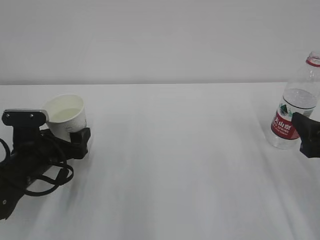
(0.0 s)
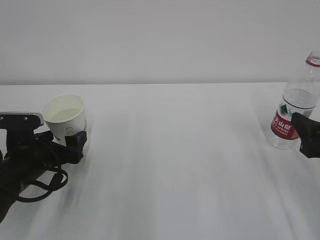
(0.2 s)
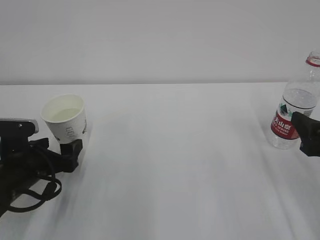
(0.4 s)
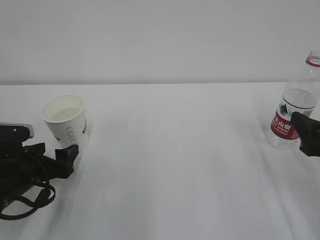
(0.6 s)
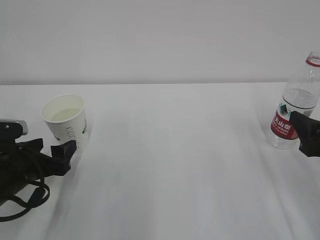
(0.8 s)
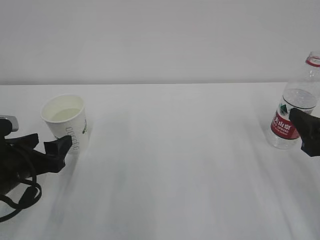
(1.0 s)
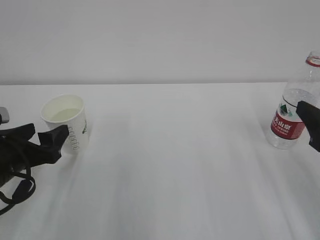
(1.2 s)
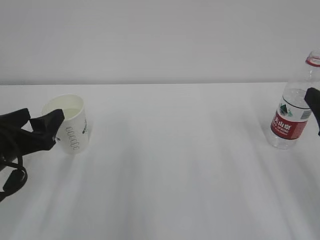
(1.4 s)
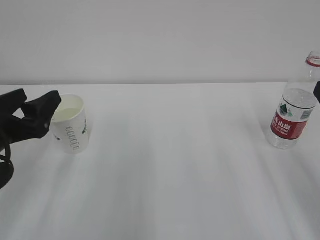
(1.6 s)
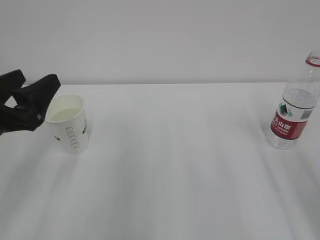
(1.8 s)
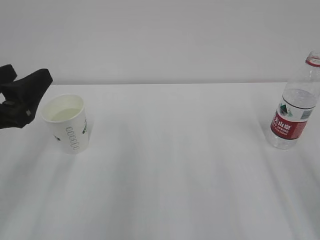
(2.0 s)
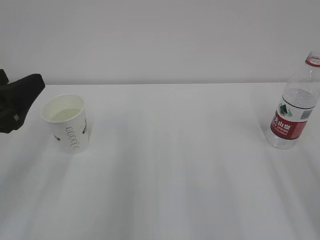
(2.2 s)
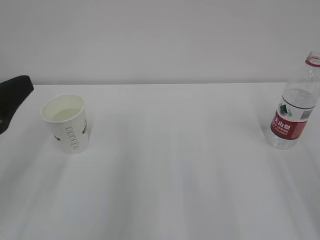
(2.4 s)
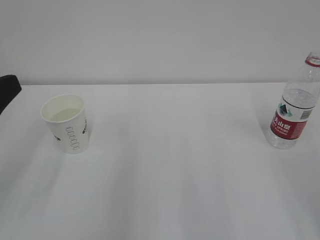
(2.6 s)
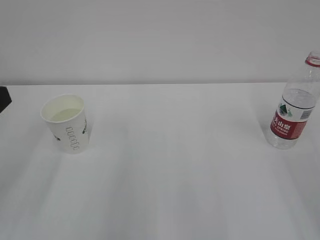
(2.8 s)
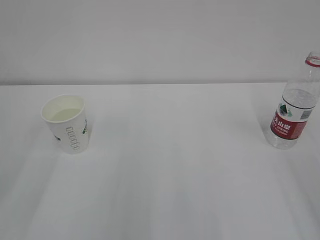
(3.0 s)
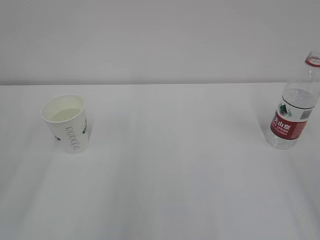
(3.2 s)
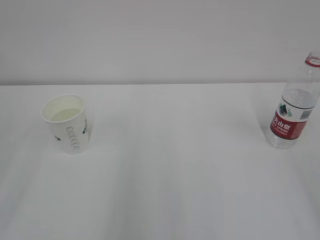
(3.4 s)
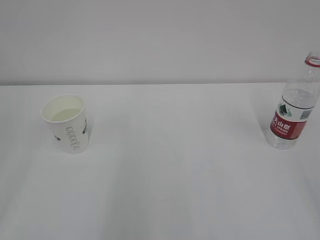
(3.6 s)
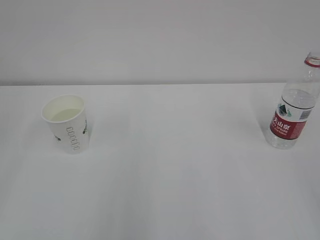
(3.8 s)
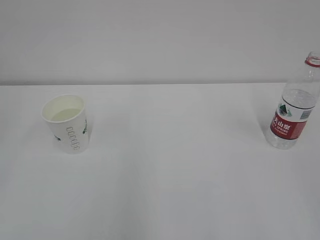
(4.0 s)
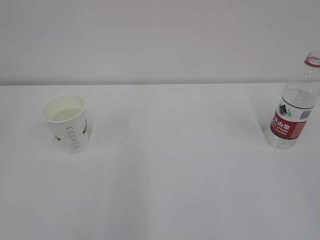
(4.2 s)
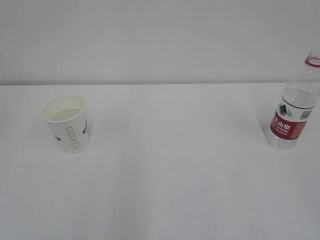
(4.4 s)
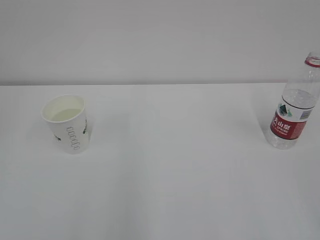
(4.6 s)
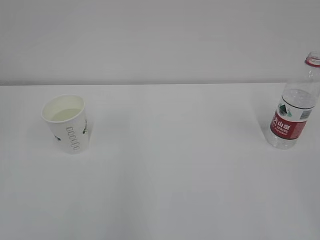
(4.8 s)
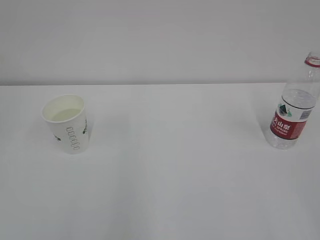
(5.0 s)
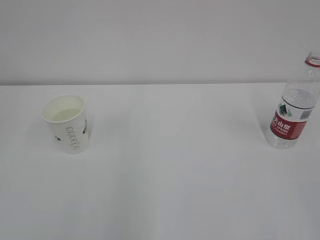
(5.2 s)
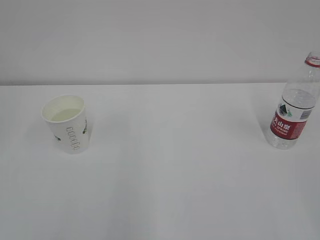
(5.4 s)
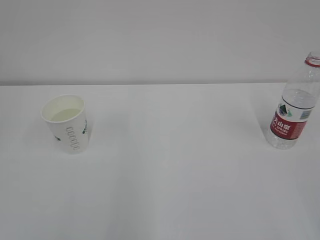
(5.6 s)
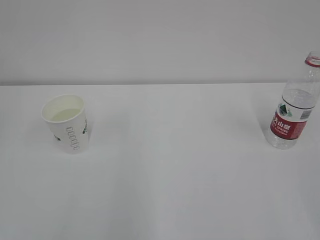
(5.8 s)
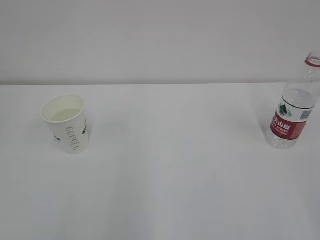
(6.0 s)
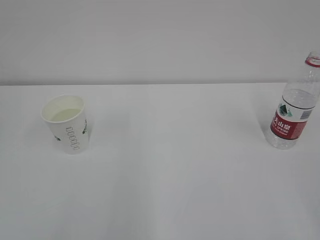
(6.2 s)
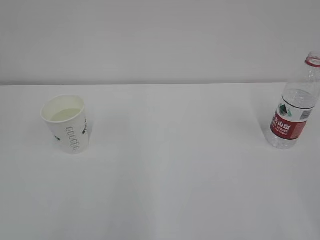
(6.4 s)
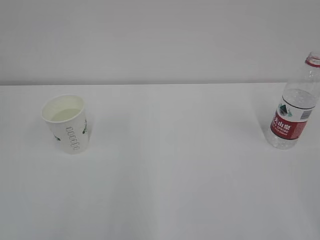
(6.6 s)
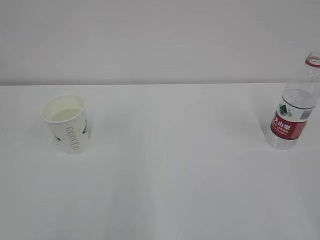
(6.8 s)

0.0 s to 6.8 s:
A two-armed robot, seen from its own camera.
0.0 to 1.4 s: The right gripper ends up roughly 5 cm from where it was. The left gripper heads upward and backward, covering approximately 10 cm, and closes.
1.4 to 2.8 s: The left gripper travels upward and backward by about 15 cm.

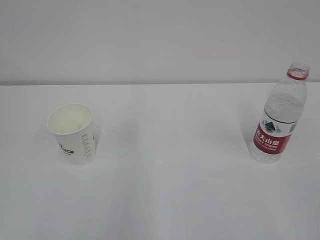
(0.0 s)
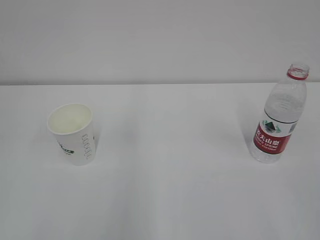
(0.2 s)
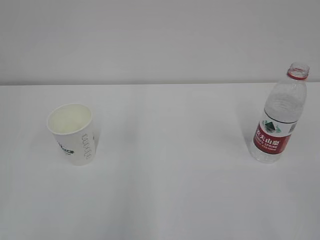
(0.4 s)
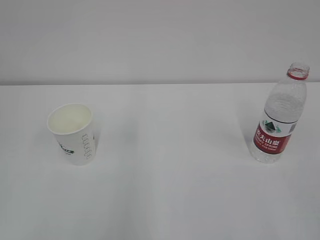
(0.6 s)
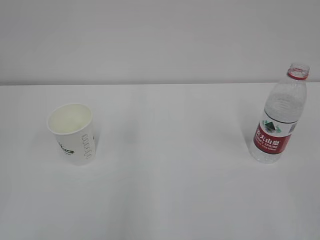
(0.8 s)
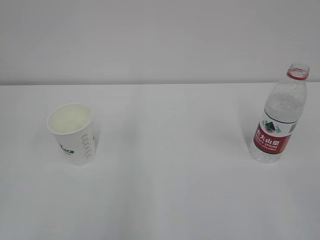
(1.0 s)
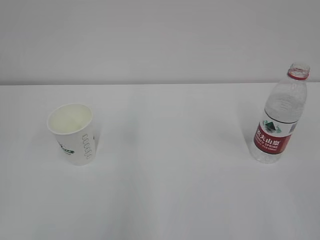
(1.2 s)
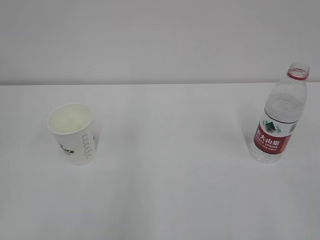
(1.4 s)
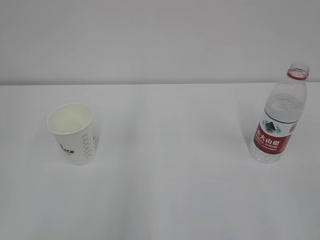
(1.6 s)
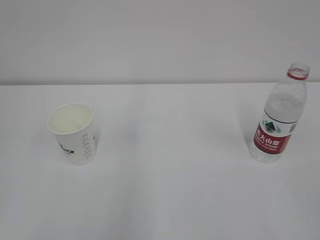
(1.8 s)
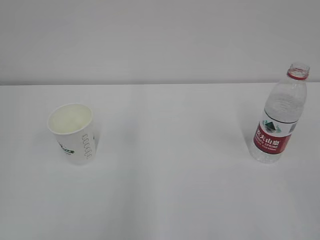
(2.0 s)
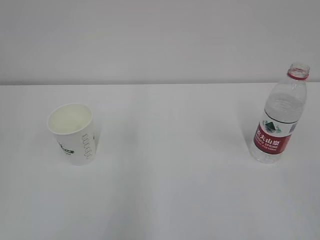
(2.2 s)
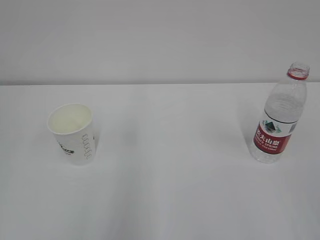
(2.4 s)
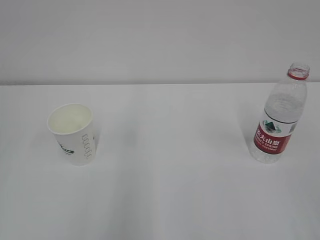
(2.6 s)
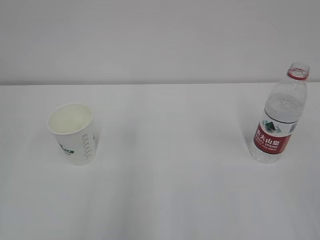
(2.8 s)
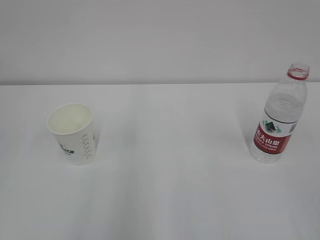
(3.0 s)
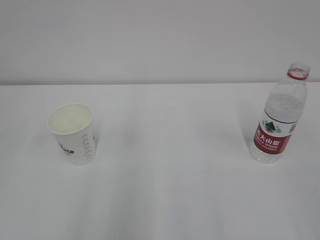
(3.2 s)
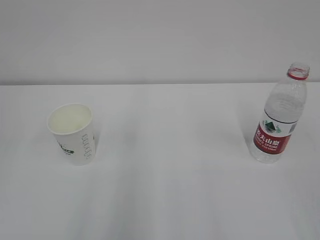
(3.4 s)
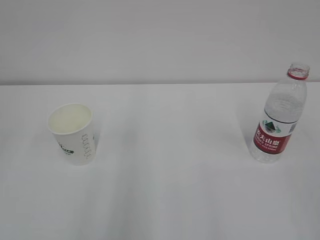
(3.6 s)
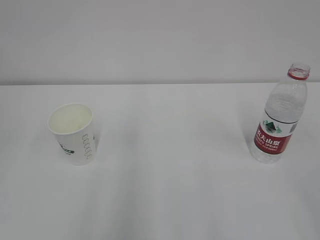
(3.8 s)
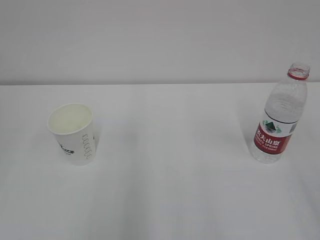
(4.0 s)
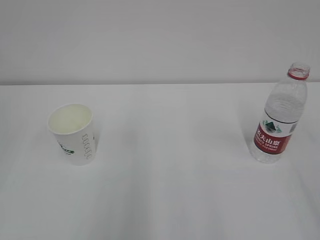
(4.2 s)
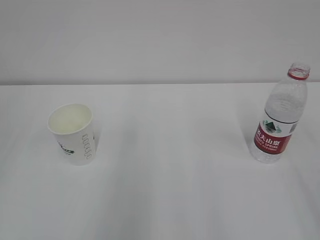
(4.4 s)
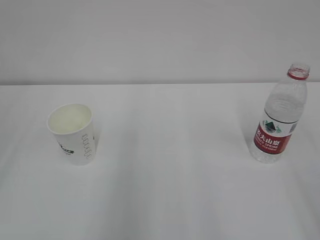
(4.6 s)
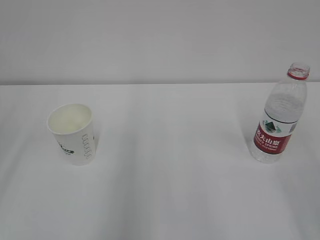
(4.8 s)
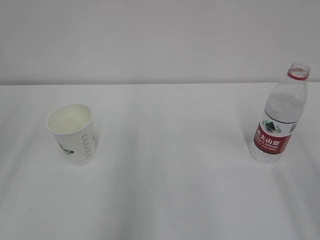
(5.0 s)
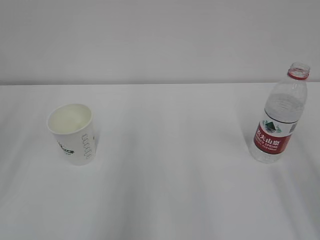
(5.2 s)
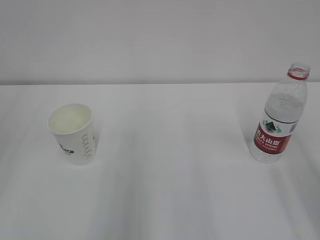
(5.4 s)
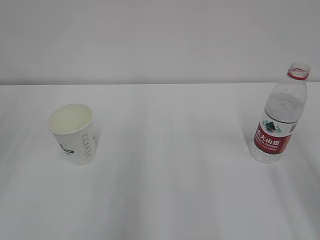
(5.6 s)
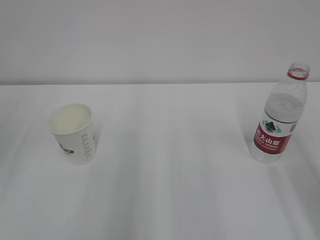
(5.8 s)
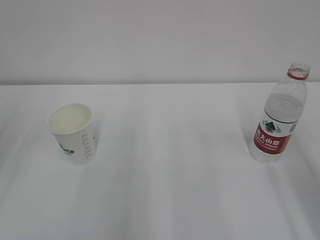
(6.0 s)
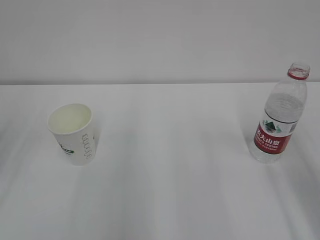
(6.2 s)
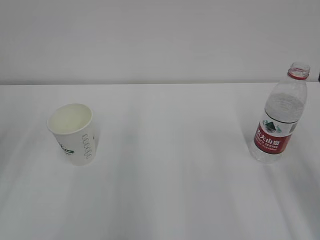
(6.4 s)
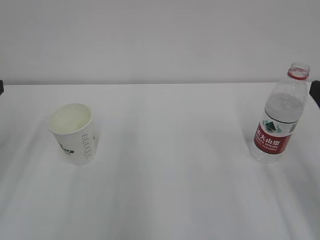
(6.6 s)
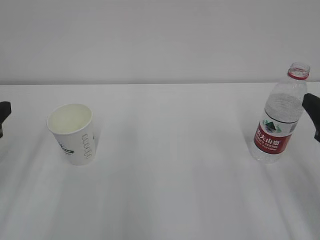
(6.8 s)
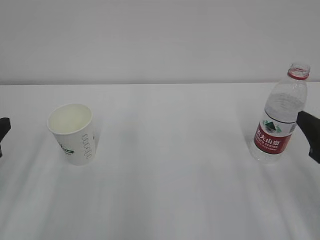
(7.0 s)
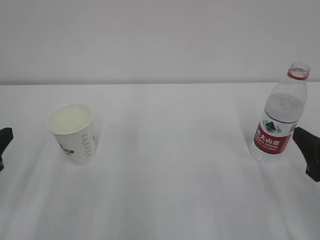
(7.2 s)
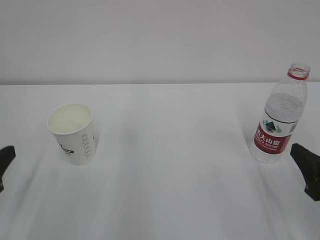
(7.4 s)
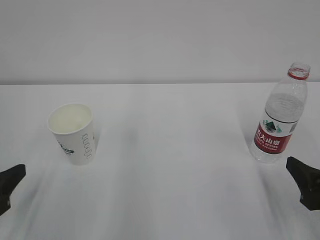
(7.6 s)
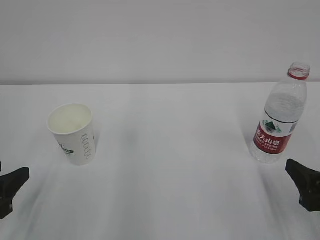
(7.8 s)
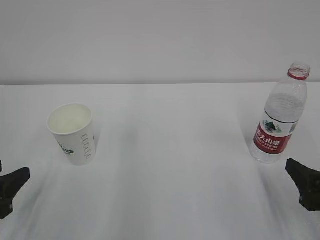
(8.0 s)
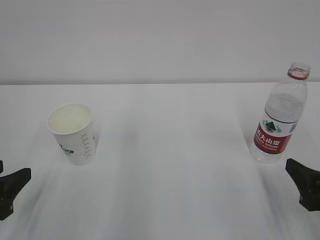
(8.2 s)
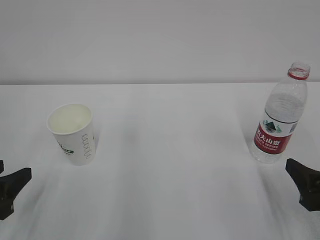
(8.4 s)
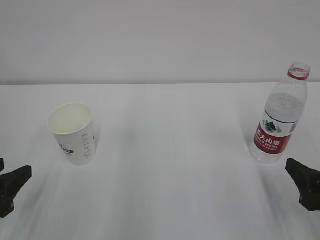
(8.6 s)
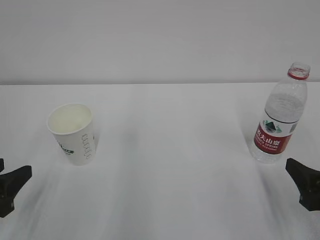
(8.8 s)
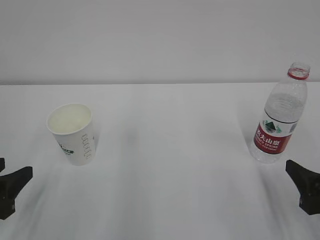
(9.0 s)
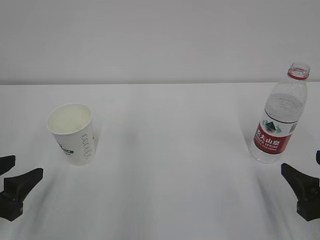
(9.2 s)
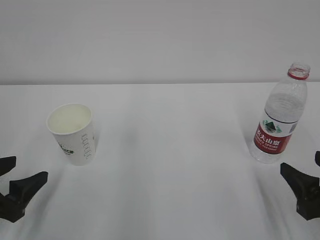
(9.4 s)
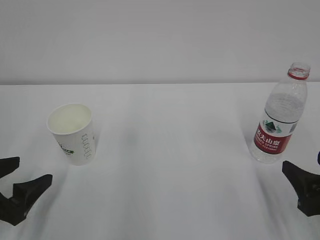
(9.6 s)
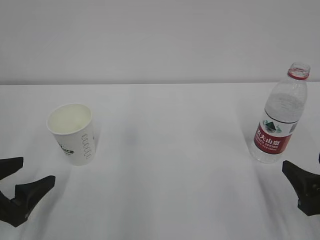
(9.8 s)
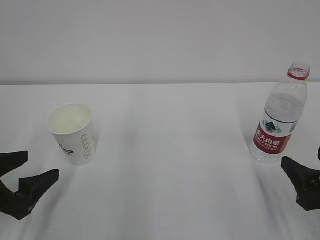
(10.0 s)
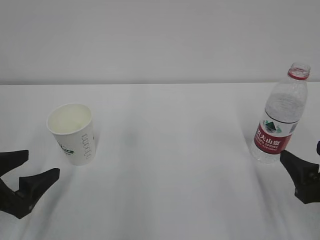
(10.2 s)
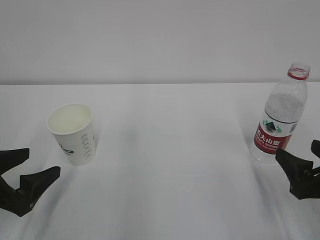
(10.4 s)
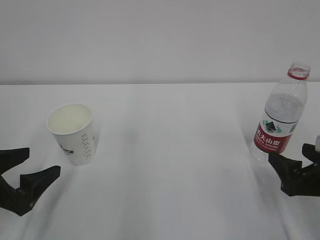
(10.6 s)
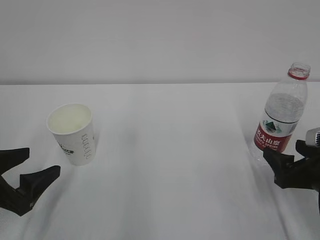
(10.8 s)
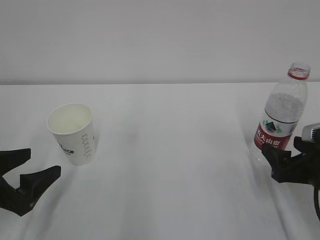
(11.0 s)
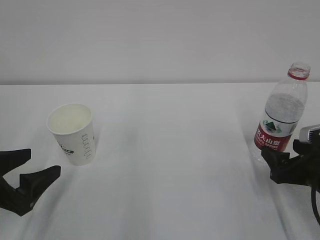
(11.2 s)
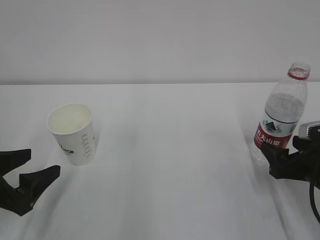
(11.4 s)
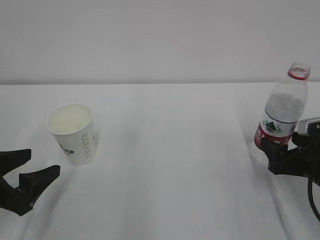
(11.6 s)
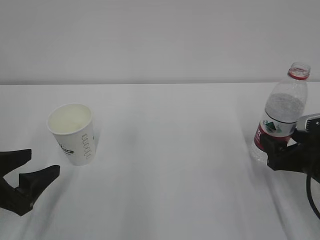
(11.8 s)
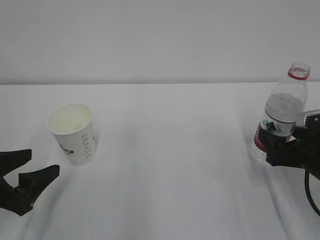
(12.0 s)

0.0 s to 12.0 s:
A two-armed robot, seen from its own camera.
6.0 to 7.6 s: Both grippers travel together downward, approximately 15 cm.
7.6 to 9.0 s: Both grippers stay about where they are.
9.0 to 10.4 s: The left gripper opens.
10.4 to 12.0 s: The right gripper shifts approximately 5 cm forward. Meanwhile the left gripper closes its fingers.

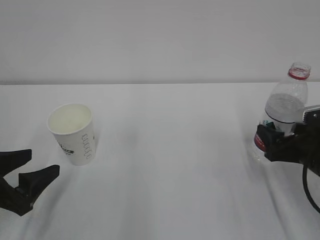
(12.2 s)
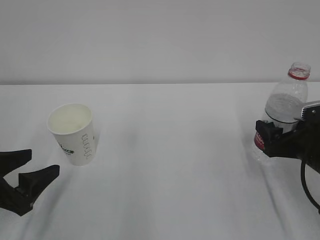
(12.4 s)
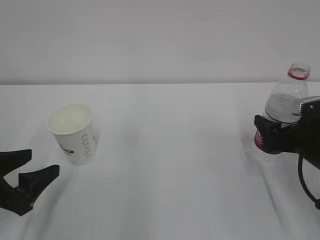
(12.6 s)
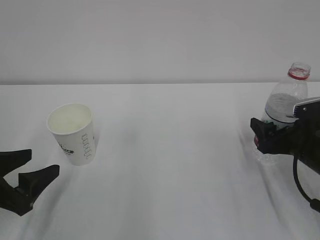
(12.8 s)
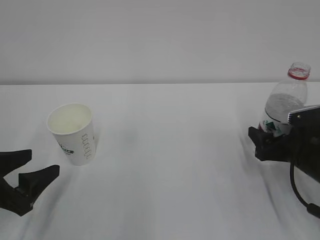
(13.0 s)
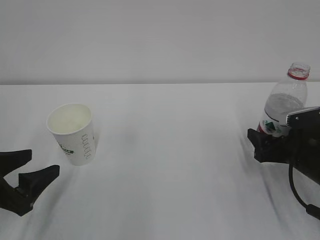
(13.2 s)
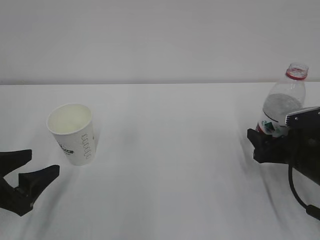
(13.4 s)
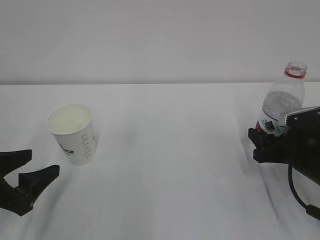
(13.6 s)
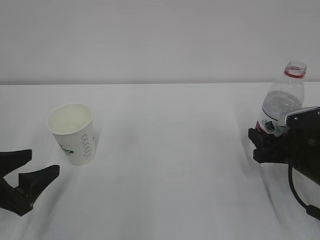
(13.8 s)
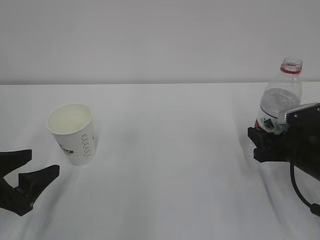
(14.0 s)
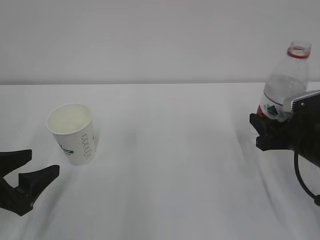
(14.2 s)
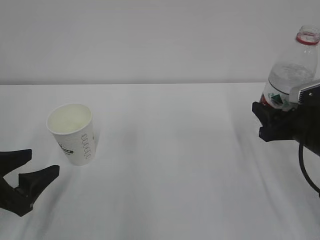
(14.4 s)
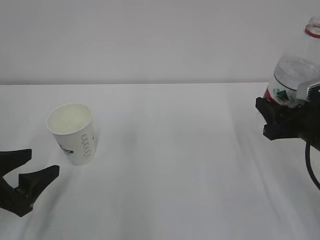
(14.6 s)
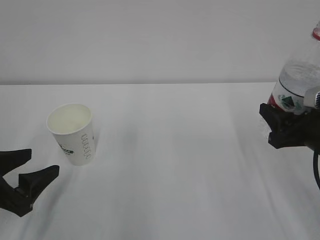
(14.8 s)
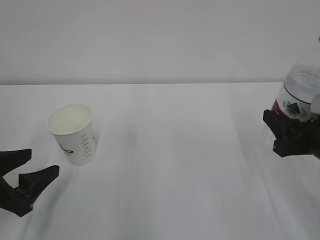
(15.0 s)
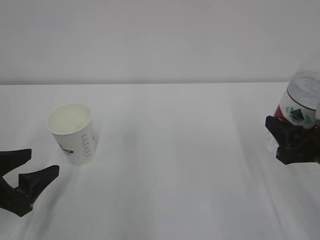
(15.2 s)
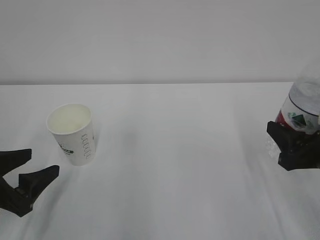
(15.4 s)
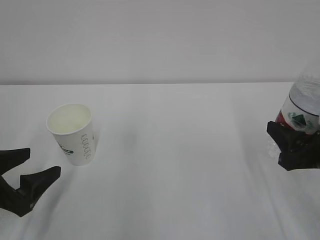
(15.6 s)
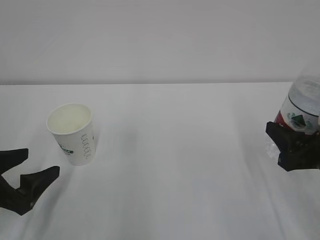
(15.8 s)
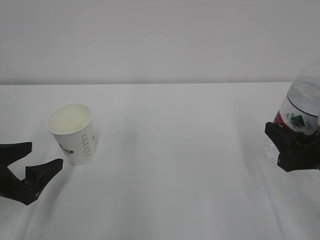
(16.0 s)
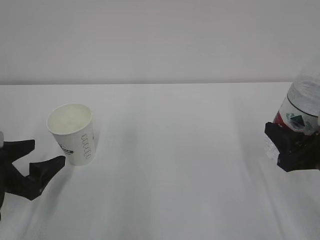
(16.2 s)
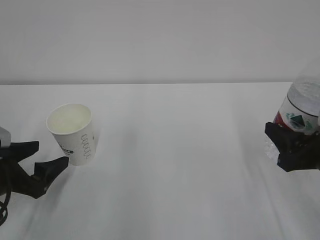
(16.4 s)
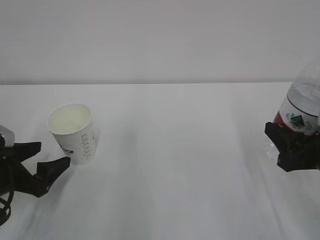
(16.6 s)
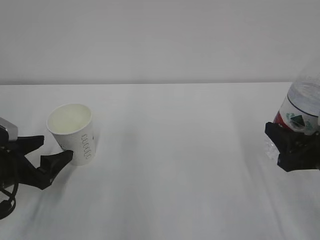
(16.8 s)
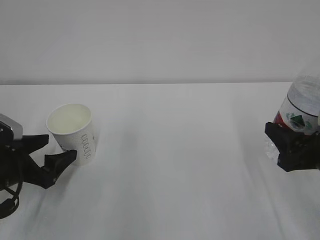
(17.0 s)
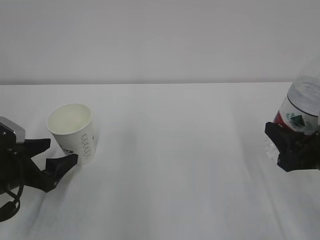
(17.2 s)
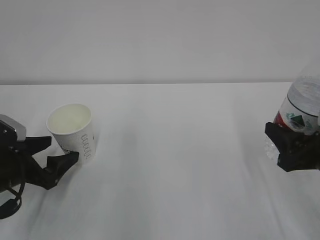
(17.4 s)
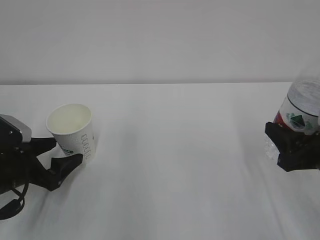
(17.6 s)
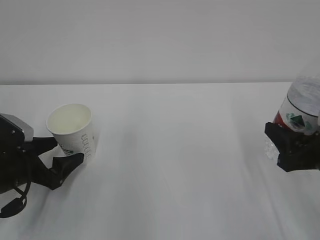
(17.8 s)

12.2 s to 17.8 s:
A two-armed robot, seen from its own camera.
12.2 to 13.6 s: The right gripper closes.
13.6 to 15.0 s: The right gripper heads upward, covering about 10 cm.
15.0 to 16.4 s: The left gripper opens.
16.4 to 17.8 s: The grippers make only small movements.
